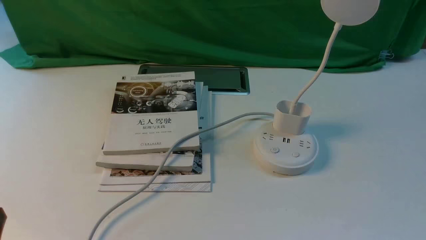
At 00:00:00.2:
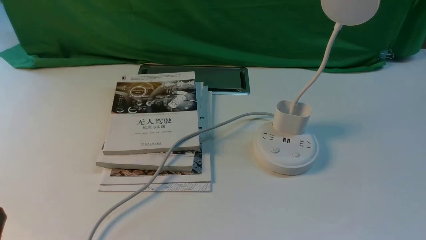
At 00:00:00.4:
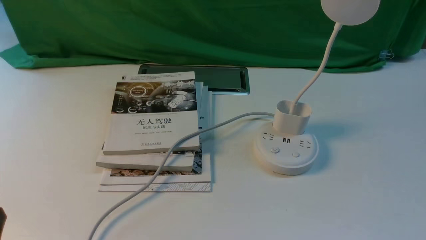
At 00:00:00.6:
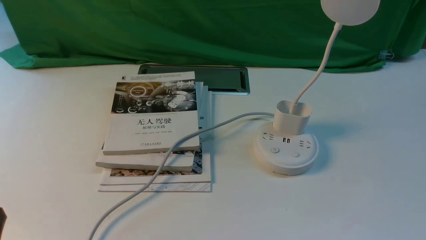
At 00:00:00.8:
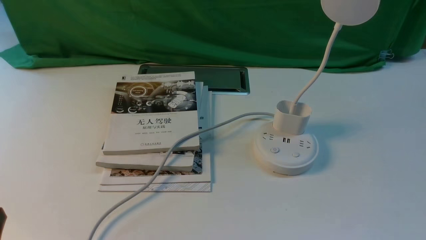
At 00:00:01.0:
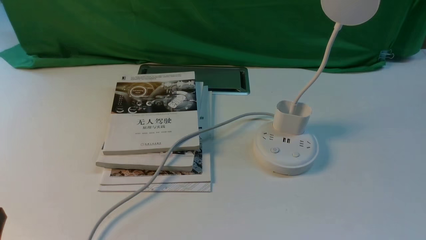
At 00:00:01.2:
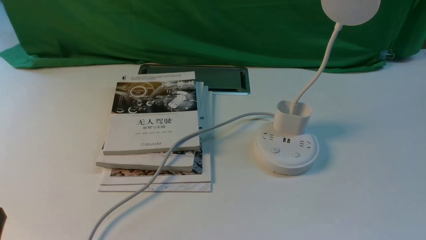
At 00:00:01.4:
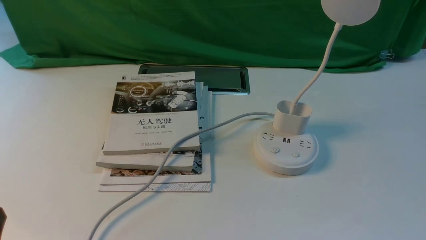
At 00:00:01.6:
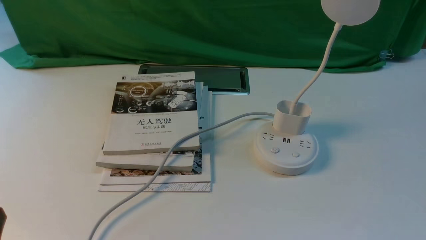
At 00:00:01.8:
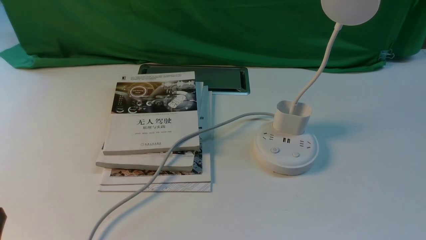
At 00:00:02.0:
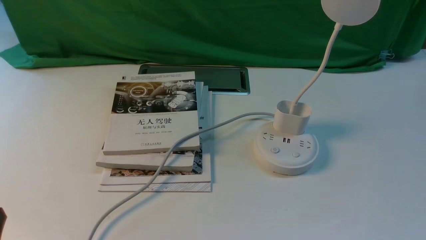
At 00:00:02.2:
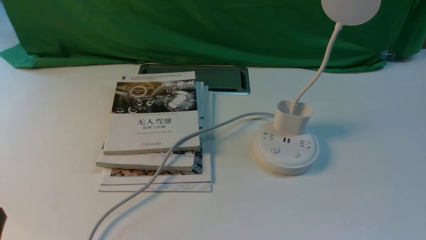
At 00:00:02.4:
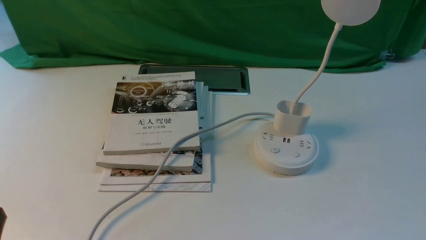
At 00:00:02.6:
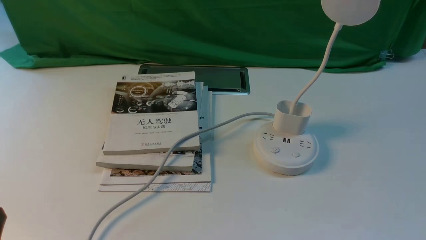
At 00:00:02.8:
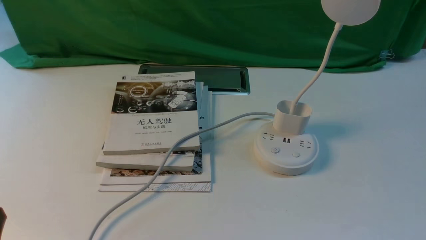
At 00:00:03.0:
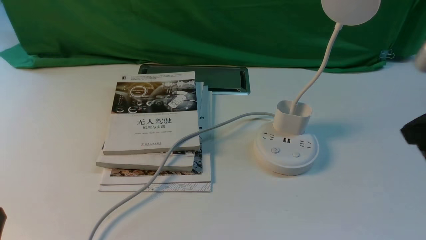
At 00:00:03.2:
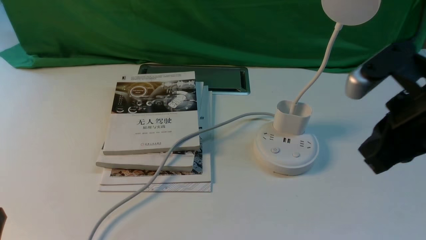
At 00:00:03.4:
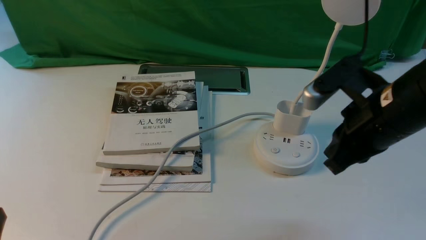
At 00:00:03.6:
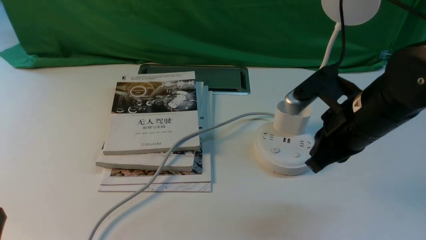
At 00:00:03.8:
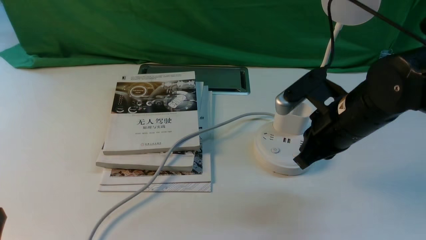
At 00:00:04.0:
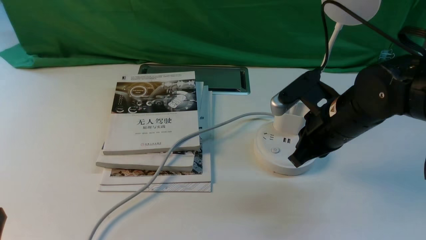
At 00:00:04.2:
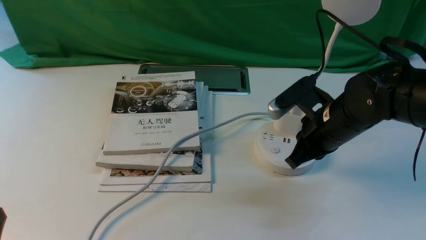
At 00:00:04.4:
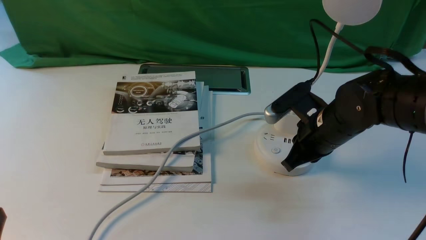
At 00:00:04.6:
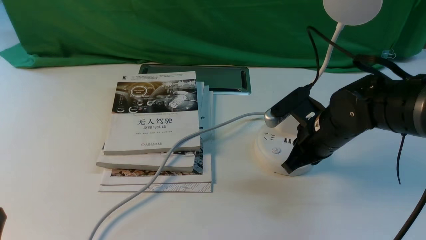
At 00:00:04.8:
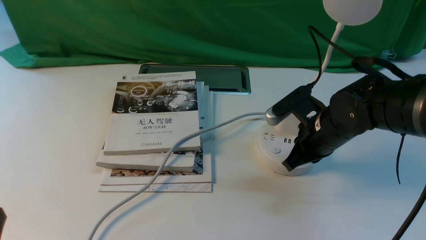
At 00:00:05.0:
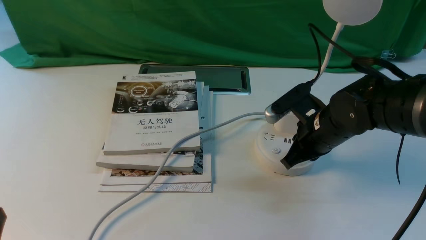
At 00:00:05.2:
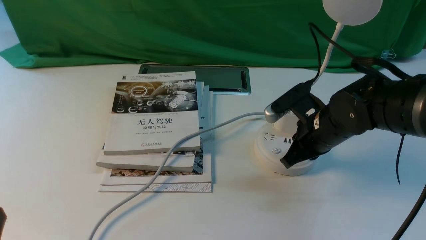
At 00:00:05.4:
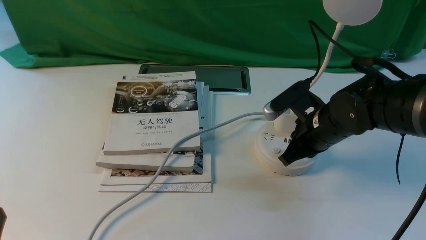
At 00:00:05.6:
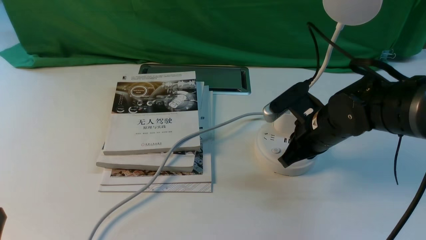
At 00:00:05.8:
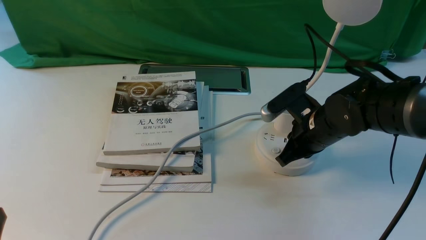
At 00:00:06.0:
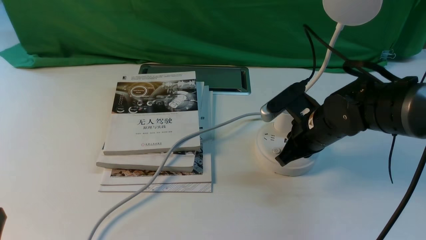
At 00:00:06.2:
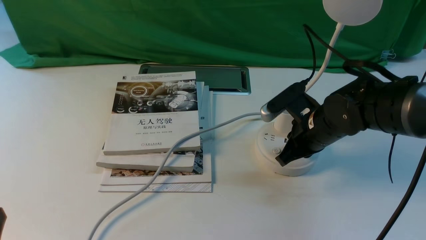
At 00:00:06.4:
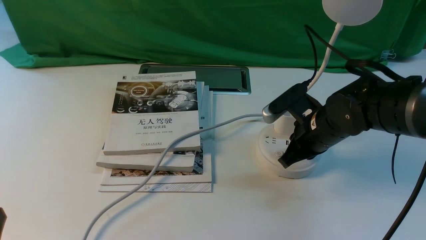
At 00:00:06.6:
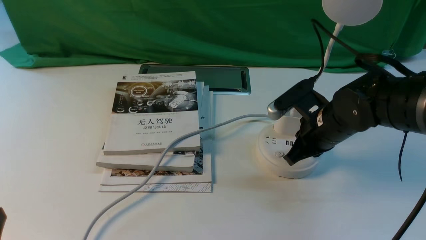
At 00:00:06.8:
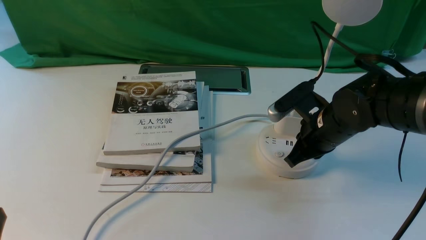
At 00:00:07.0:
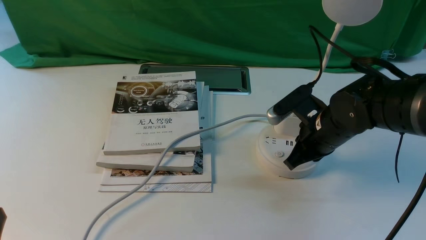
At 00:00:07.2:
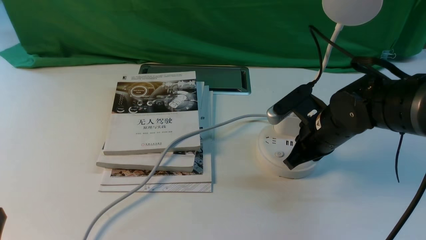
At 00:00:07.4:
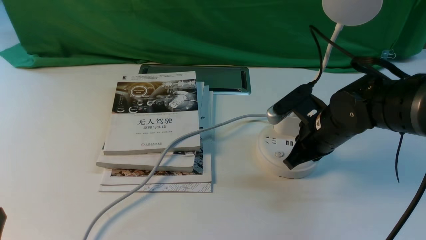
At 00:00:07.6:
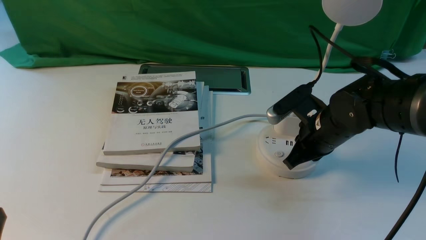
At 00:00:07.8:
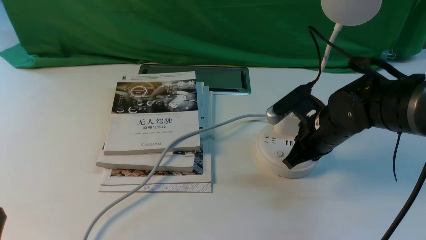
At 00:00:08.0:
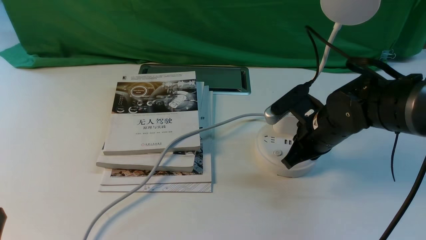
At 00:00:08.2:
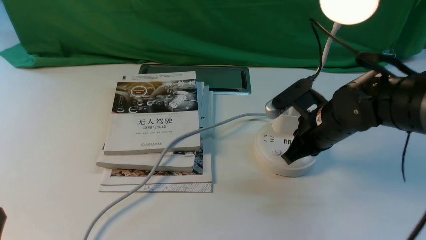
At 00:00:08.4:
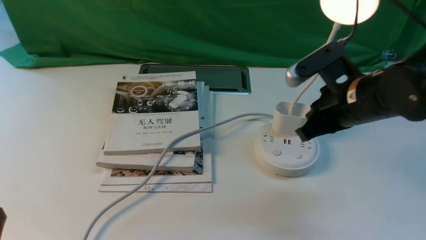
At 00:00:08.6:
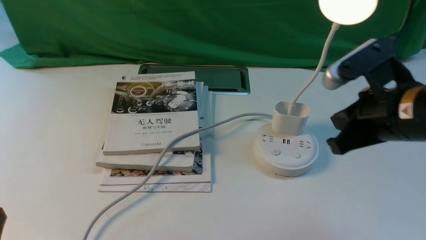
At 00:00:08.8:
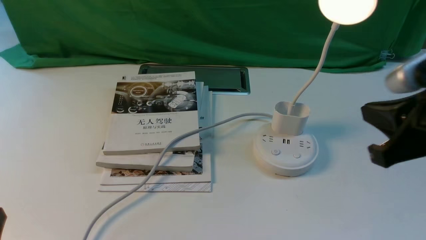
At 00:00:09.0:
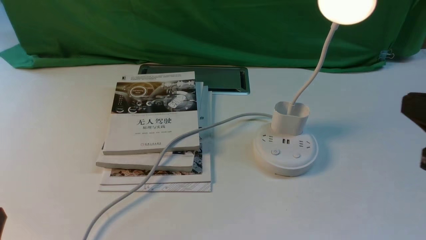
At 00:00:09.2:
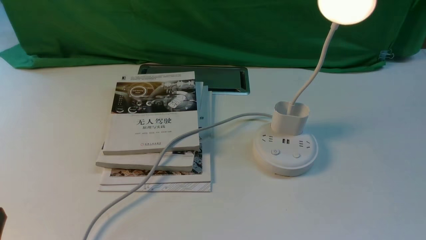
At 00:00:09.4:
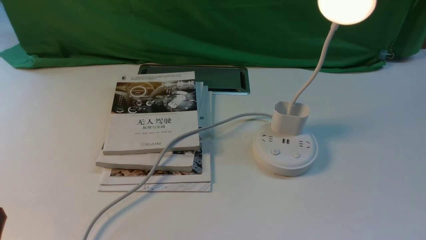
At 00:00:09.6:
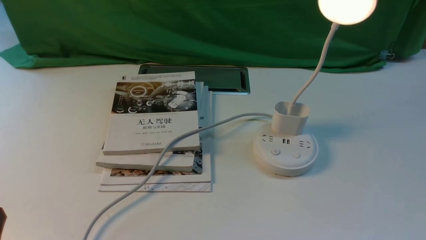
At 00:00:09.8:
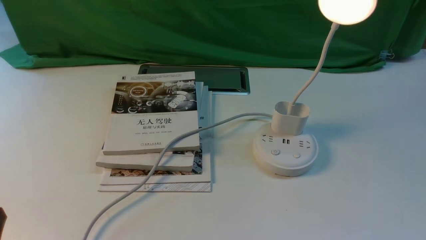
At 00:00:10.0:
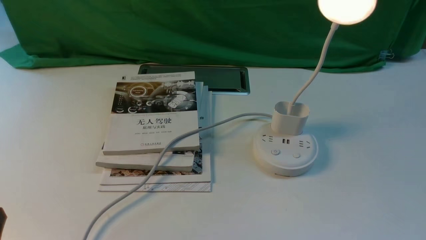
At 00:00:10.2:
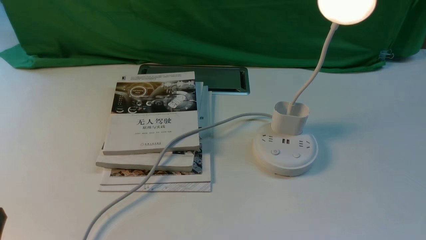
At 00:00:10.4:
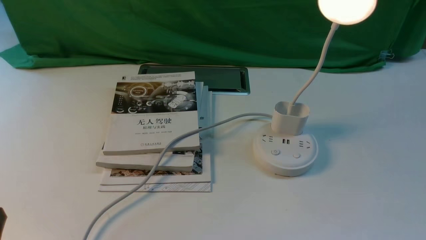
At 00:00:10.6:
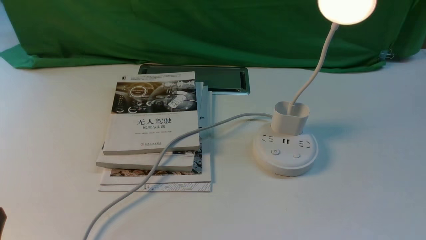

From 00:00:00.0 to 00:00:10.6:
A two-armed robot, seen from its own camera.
Step, from 00:00:00.0 to 00:00:08.4: use the right arm to press the button switch on the lamp holder.
From 00:00:01.6 to 00:00:03.0: The right gripper moves upward and forward, approximately 20 cm, and closes up.
From 00:00:03.0 to 00:00:04.6: The right gripper heads downward, forward and to the left, covering roughly 25 cm.
From 00:00:04.6 to 00:00:06.0: The grippers move only a little.
From 00:00:06.0 to 00:00:07.6: The two grippers keep their place.
From 00:00:07.6 to 00:00:09.0: The right gripper moves backward, upward and to the right, some 25 cm.
From 00:00:09.0 to 00:00:10.6: The right gripper is displaced downward, backward and to the right by some 20 cm, and opens.

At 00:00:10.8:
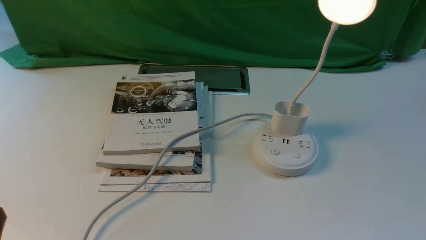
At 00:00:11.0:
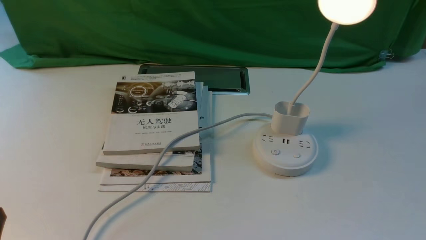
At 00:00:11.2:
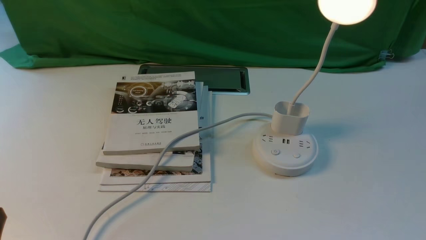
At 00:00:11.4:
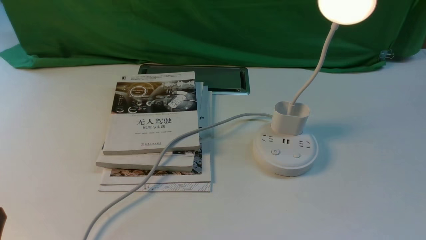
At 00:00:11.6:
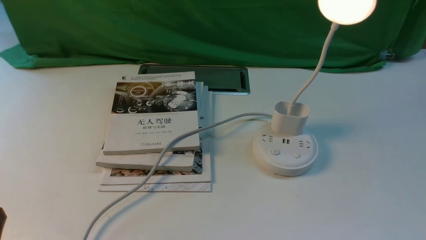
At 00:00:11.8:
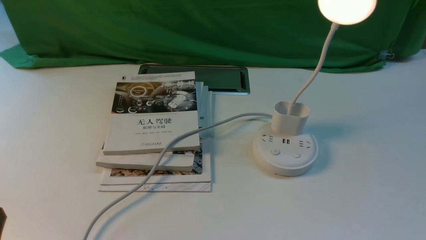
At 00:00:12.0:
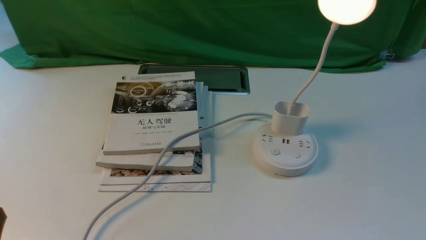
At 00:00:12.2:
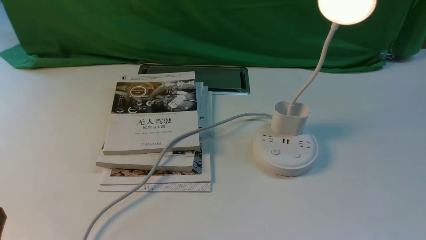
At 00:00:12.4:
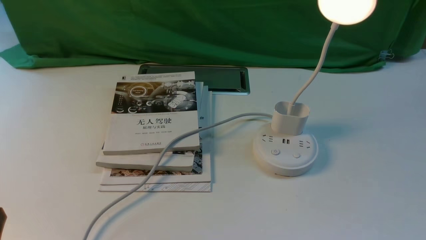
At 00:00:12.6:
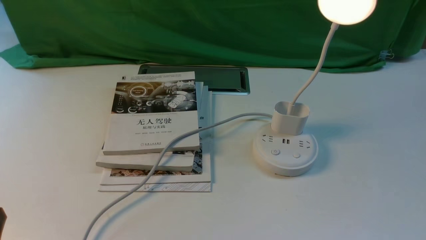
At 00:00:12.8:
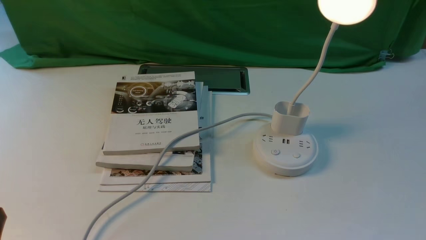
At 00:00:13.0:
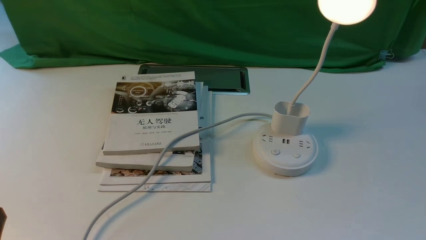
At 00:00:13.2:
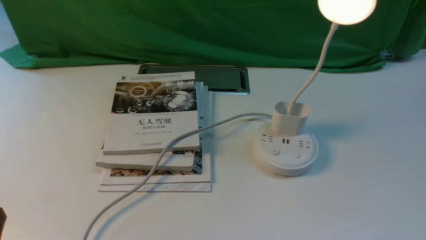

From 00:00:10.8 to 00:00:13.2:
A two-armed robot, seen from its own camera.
From 00:00:10.8 to 00:00:13.2: Both grippers stay about where they are.
